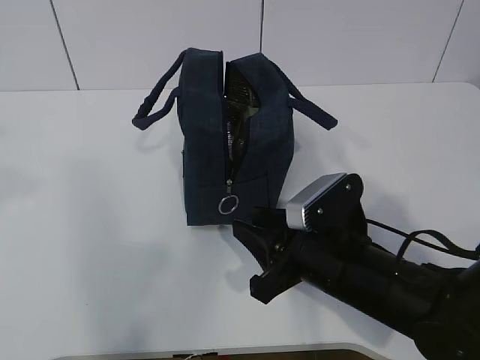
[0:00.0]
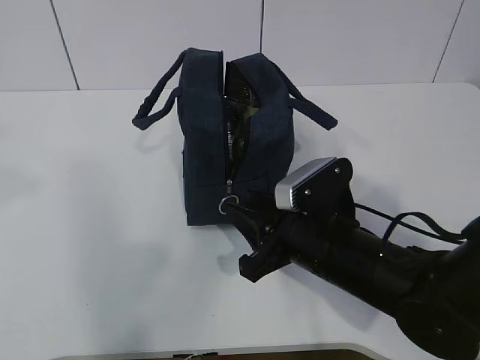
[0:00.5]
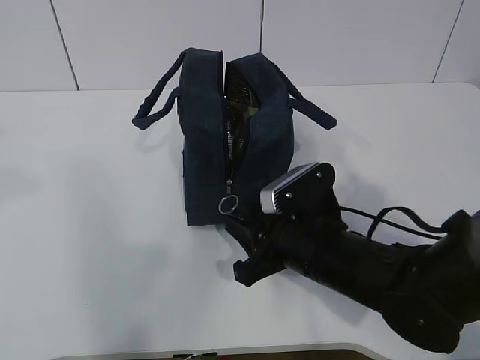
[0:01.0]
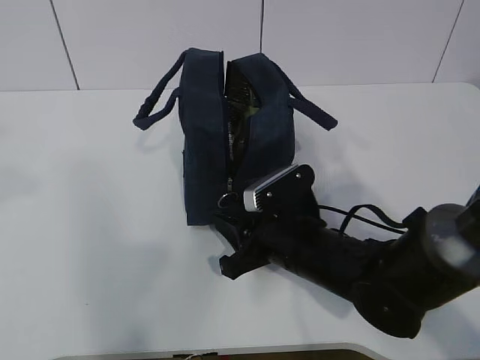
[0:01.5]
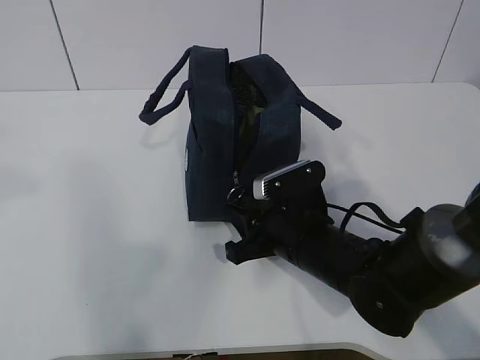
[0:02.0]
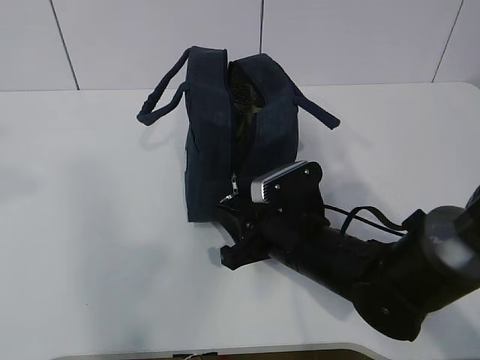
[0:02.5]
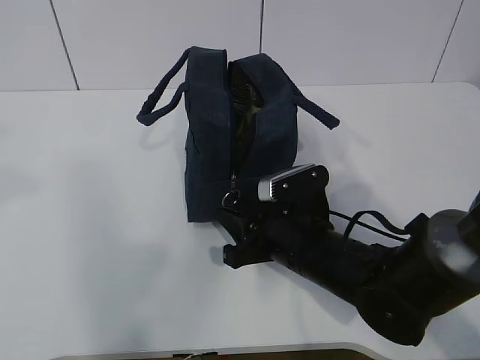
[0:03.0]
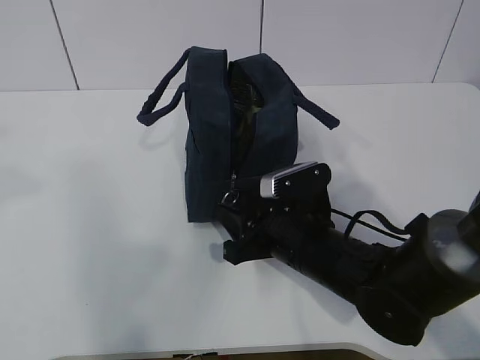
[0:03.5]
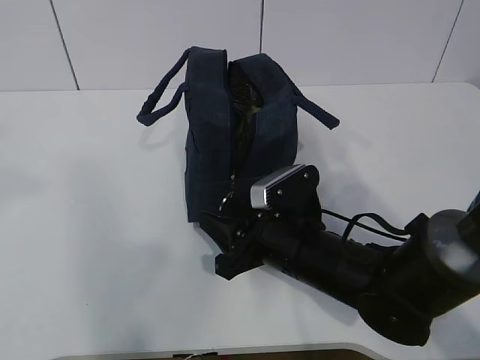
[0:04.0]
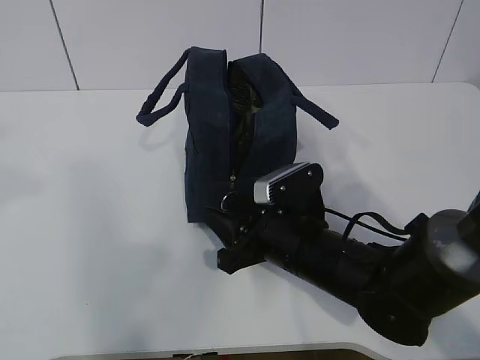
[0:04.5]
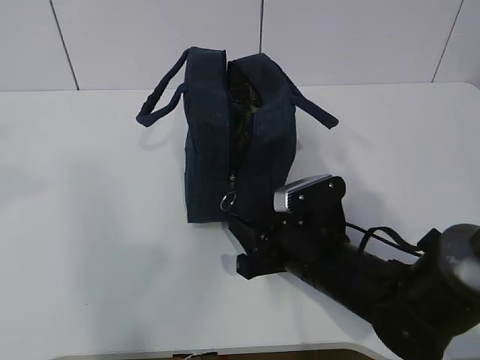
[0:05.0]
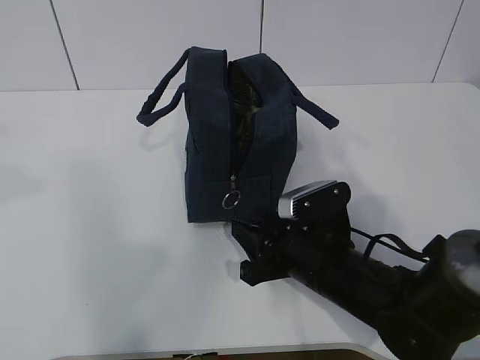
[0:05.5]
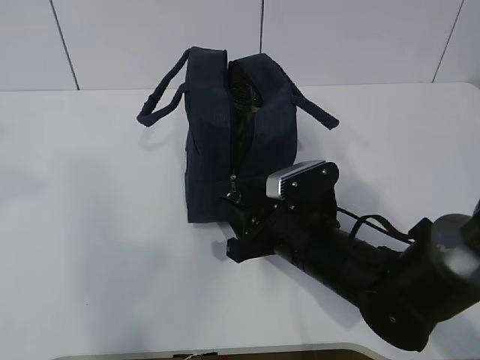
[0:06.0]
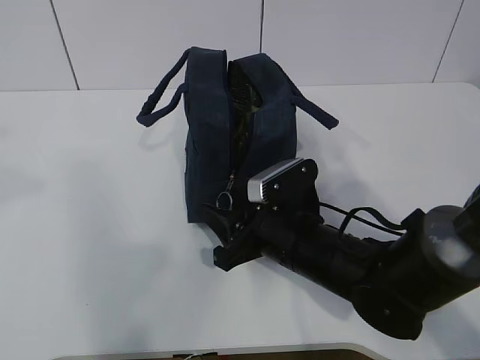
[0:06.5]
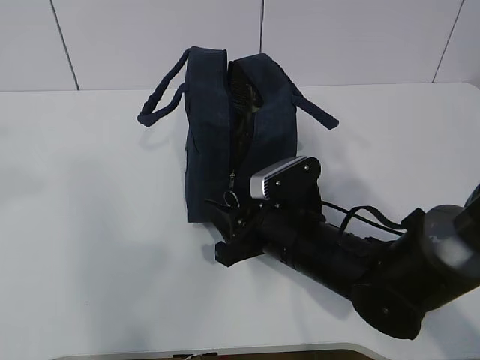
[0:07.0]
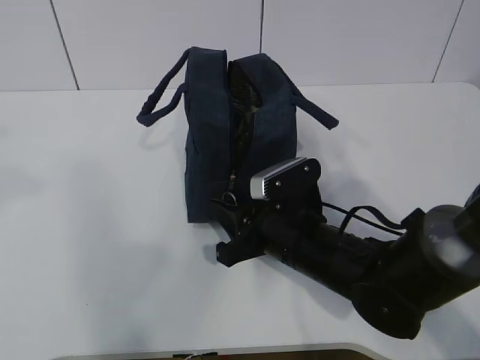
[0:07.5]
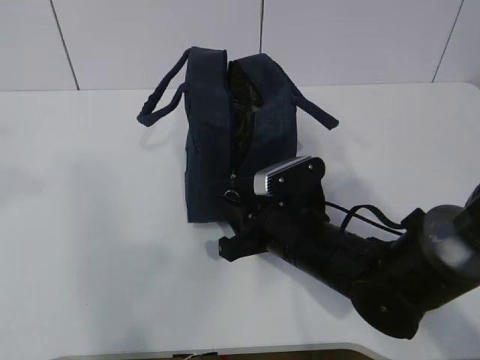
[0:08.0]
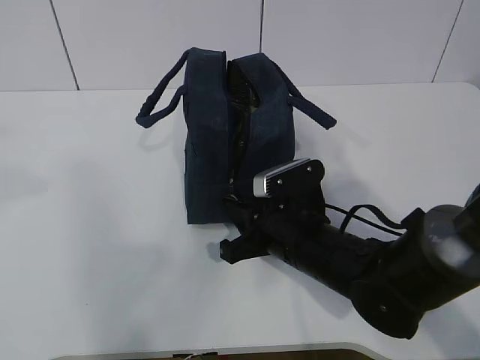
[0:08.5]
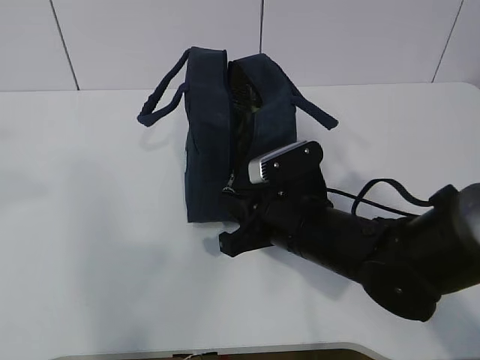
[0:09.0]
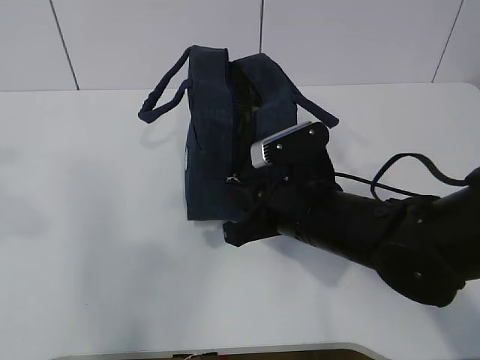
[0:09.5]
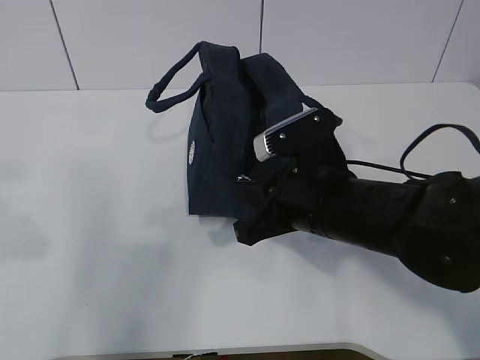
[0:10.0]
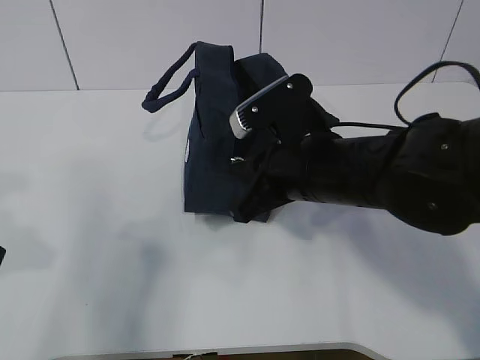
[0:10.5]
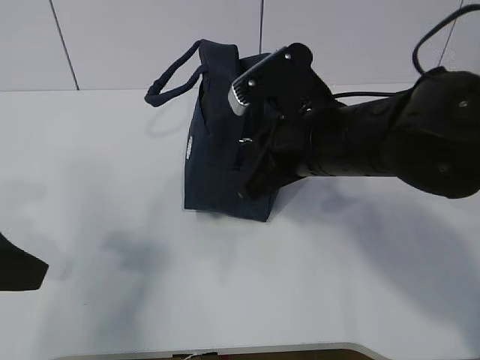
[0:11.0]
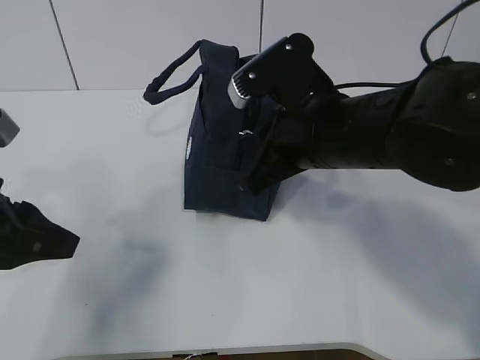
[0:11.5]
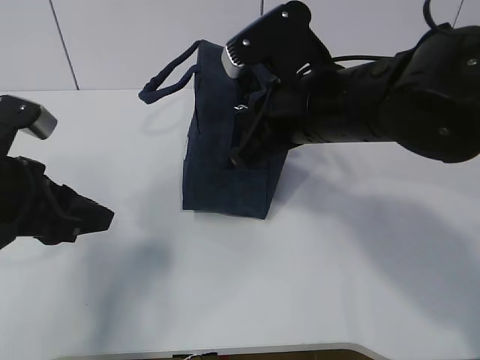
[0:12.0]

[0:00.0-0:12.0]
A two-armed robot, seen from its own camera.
Step, 0:03.5 to 0:10.5: Pull the zipper with your right hand.
0:00.0 to 0:02.0: The right gripper travels forward by some 5 cm.
0:02.0 to 0:08.0: There are only small adjustments of the grippers.
0:08.0 to 0:10.0: The right gripper heads upward, covering roughly 5 cm, and closes. The left gripper is displaced downward by roughly 10 cm.
0:10.0 to 0:12.0: The left gripper shifts approximately 15 cm downward and forward. Meanwhile the right gripper travels upward by approximately 10 cm.

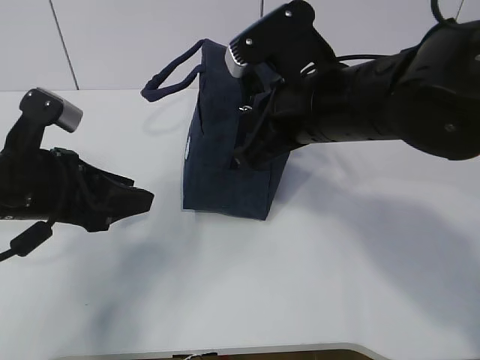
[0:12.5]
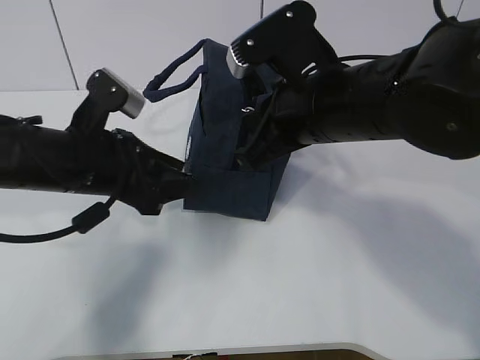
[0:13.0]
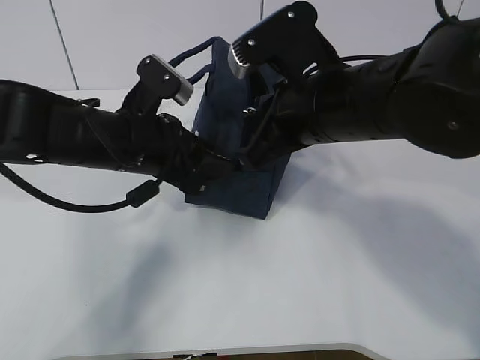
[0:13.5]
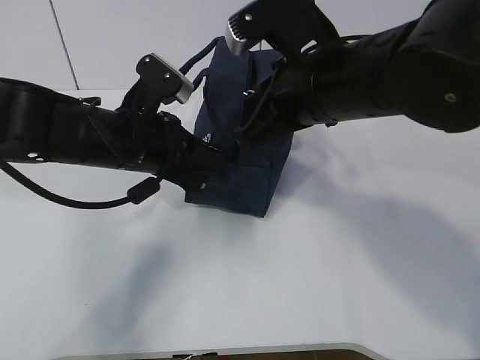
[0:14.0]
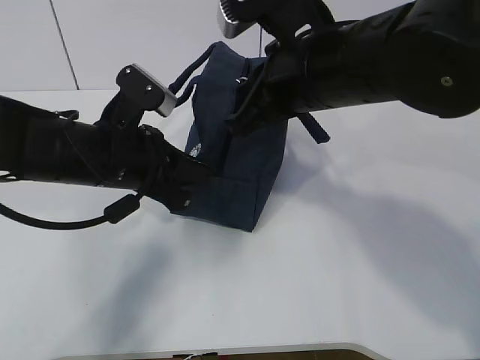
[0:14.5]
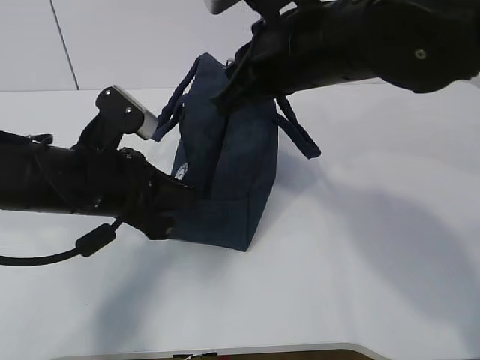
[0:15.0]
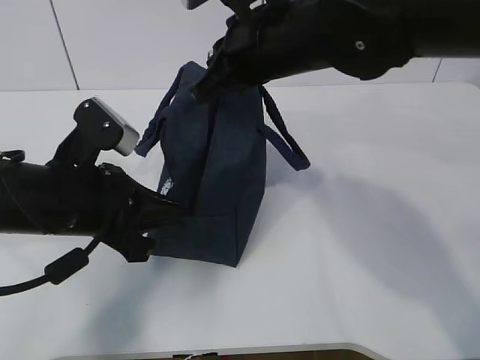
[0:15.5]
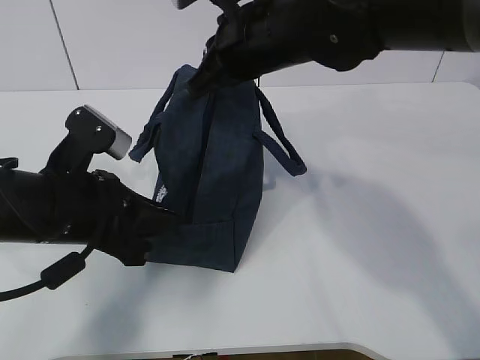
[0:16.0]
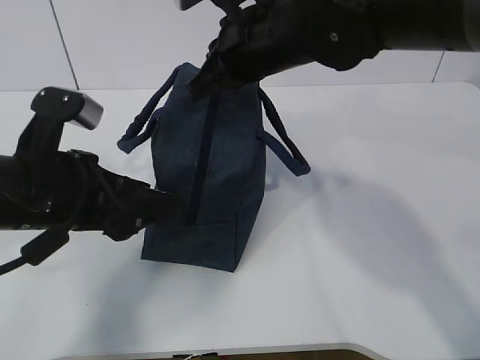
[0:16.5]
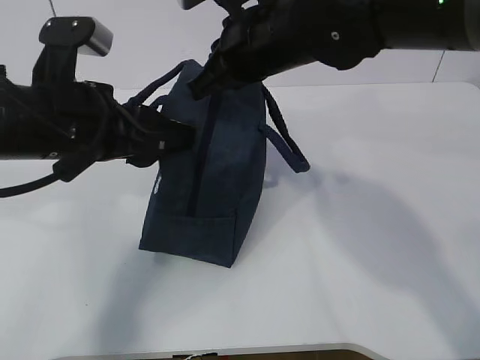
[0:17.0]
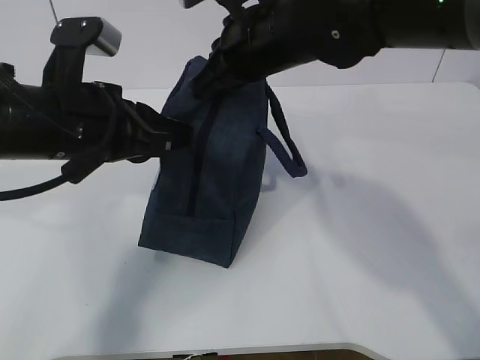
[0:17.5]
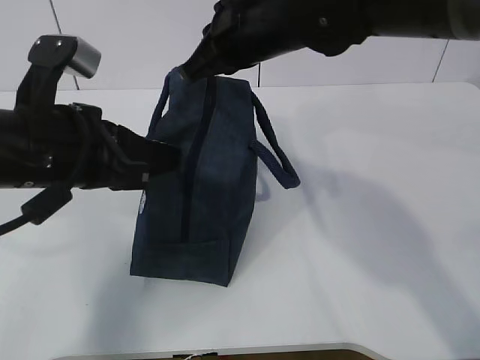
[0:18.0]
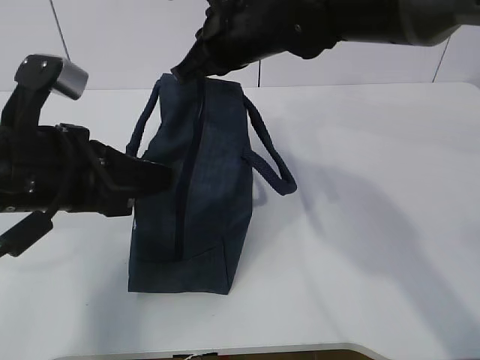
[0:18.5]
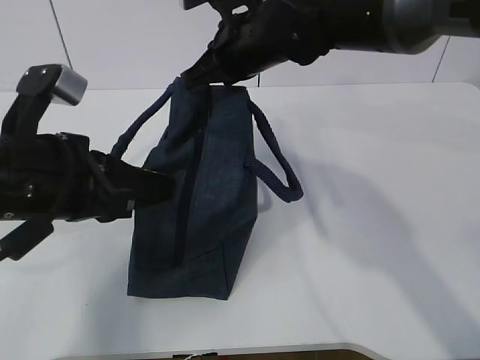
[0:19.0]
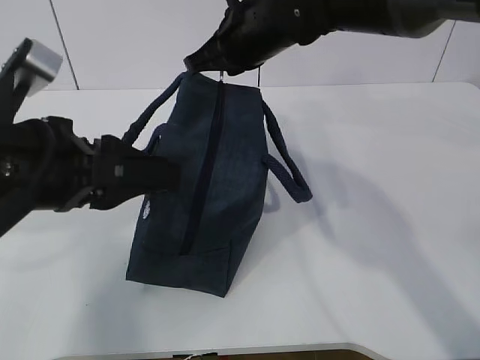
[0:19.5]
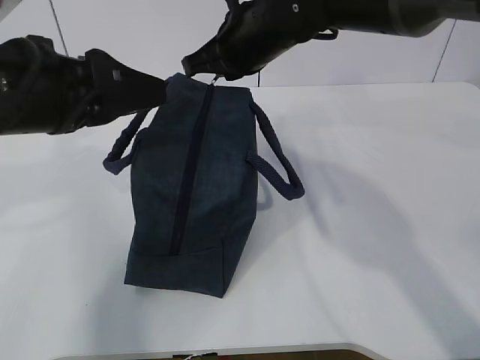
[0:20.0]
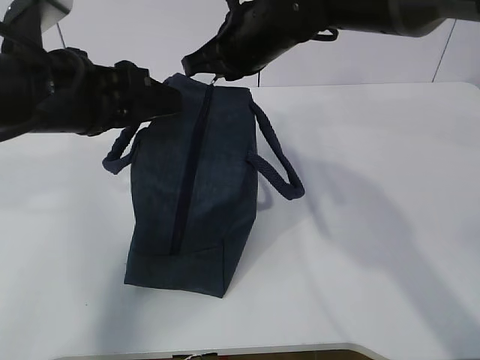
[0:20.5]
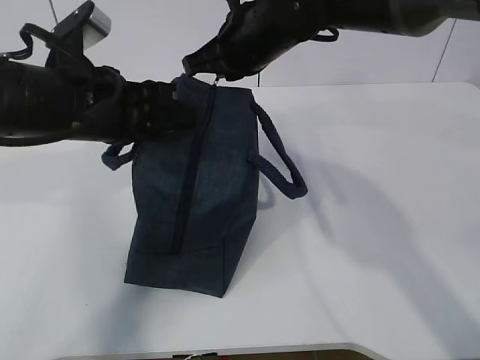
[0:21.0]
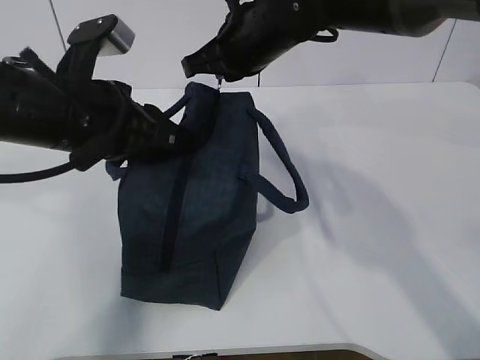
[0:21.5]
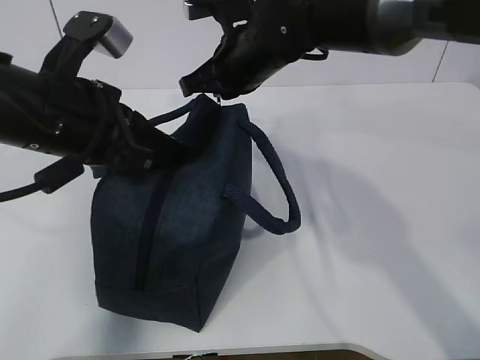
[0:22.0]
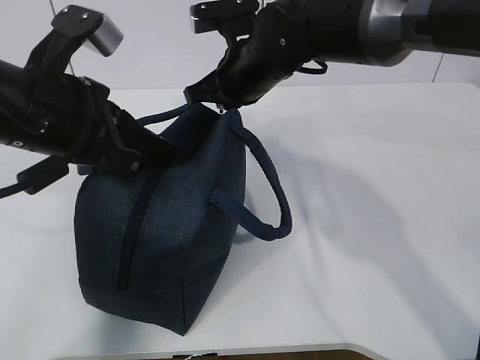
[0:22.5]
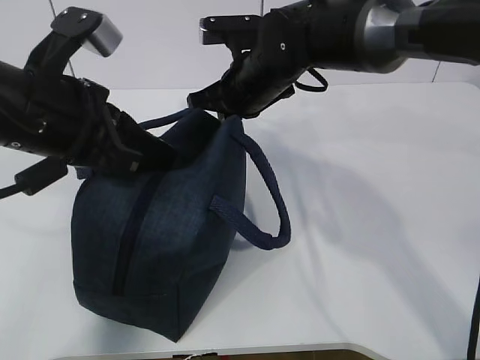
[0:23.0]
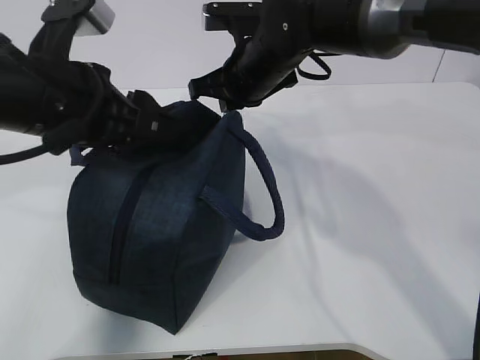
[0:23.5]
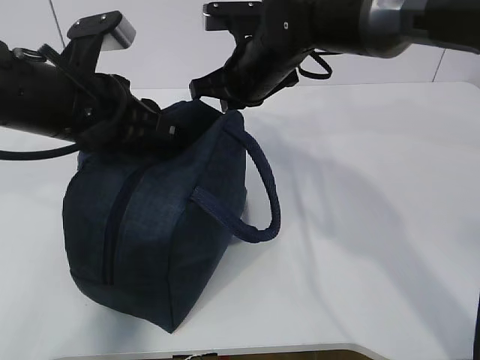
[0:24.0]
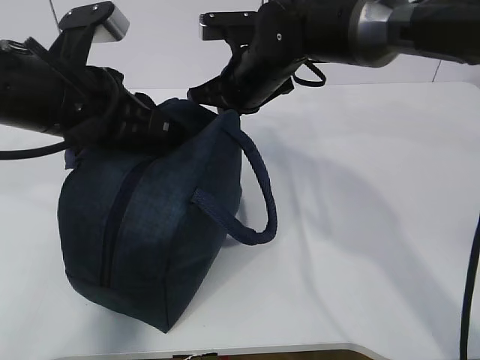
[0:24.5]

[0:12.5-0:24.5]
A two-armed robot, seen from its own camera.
0:12.5 to 0:14.5: The left gripper shifts roughly 5 cm to the right, and closes.
0:14.5 to 0:16.5: The right gripper shifts approximately 5 cm forward. Meanwhile the left gripper moves backward, some 5 cm, and opens its fingers.
0:16.5 to 0:18.5: The left gripper closes its fingers.
0:18.5 to 0:20.5: The left gripper moves some 5 cm, and opens.
0:20.5 to 0:22.5: The left gripper closes.
0:22.5 to 0:24.5: The left gripper opens, then closes once more.

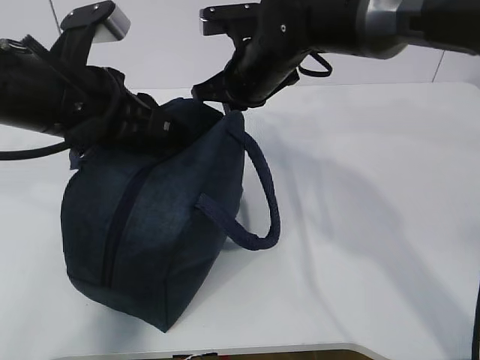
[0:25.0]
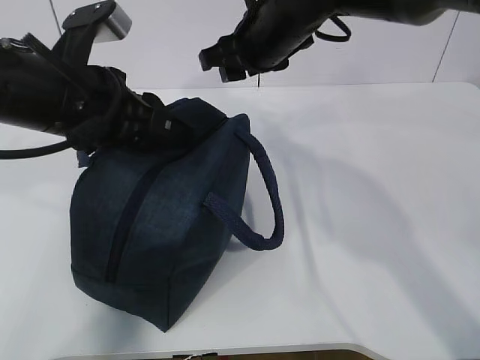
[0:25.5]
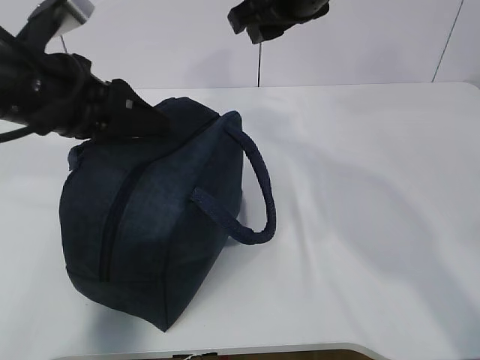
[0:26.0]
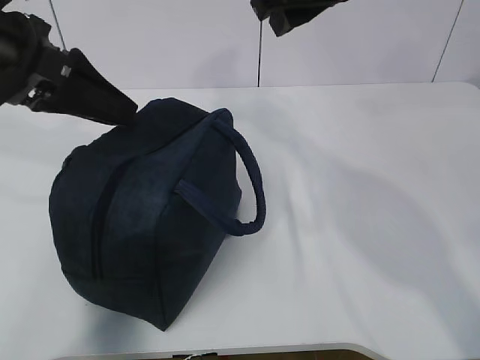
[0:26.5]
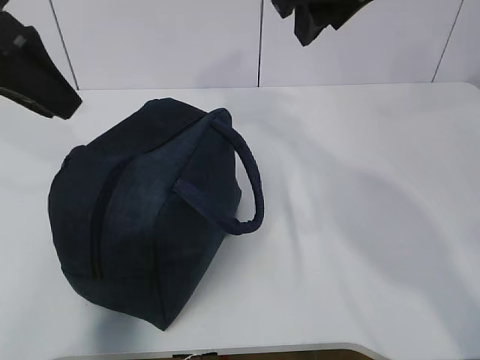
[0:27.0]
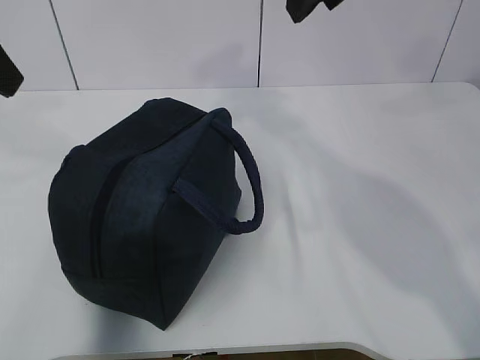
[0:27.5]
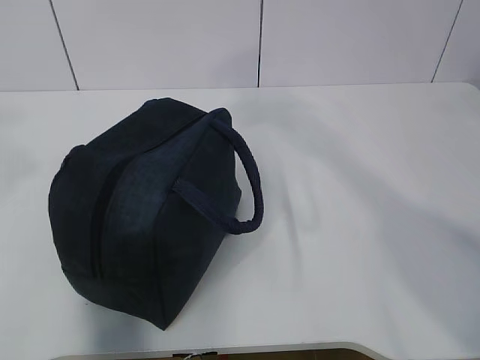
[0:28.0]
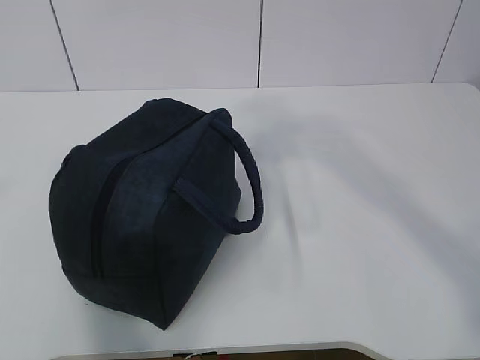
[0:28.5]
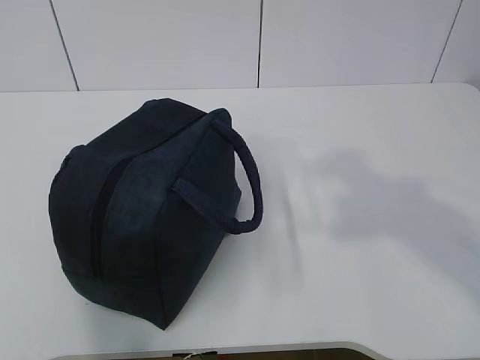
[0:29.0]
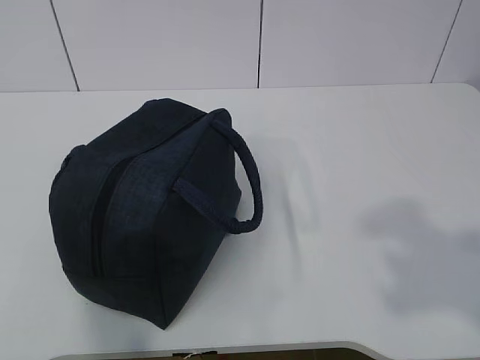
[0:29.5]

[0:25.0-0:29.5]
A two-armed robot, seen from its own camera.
0:25.0 to 0:27.0: The right gripper is displaced upward, backward and to the right by roughly 20 cm, and opens. The left gripper travels upward and to the left by about 10 cm, and opens up.
0:27.0 to 0:29.5: The right gripper goes some 40 cm backward and to the right, while the left gripper heads backward, covering roughly 30 cm.
